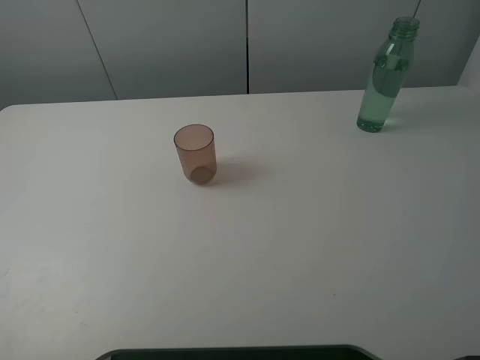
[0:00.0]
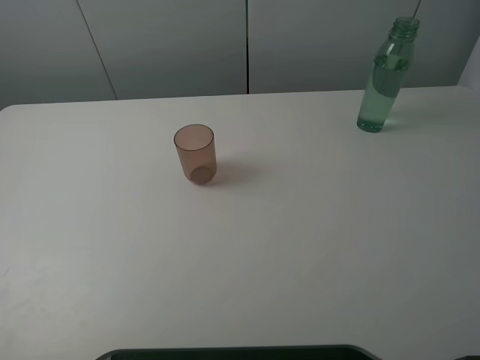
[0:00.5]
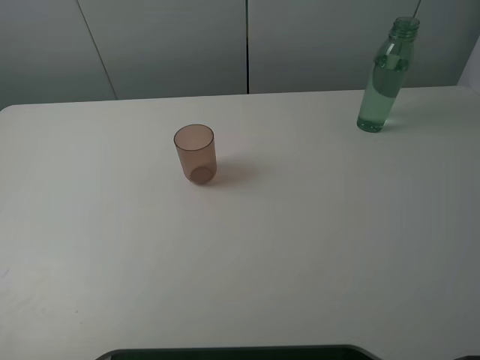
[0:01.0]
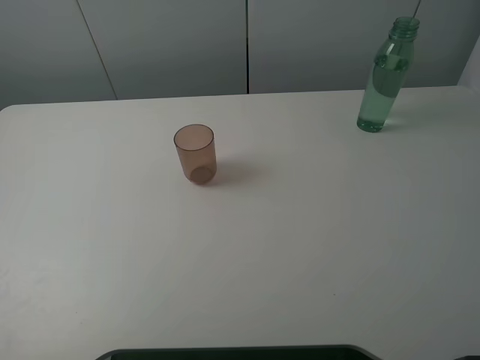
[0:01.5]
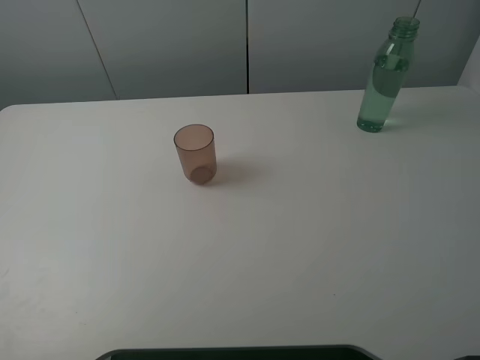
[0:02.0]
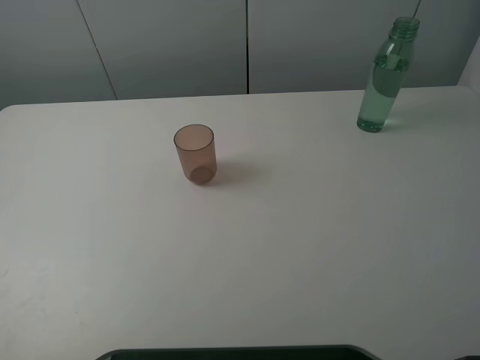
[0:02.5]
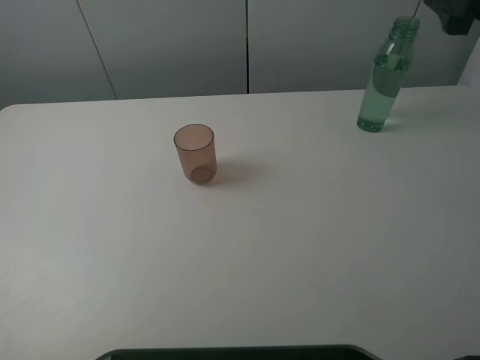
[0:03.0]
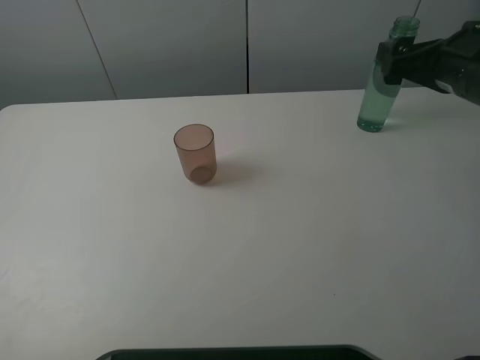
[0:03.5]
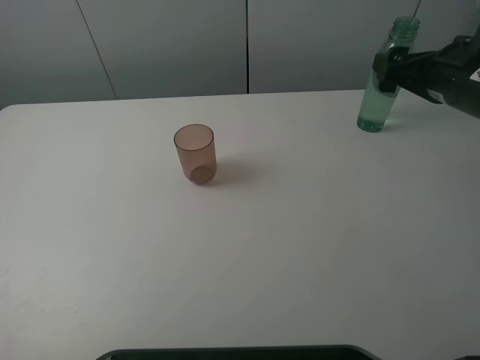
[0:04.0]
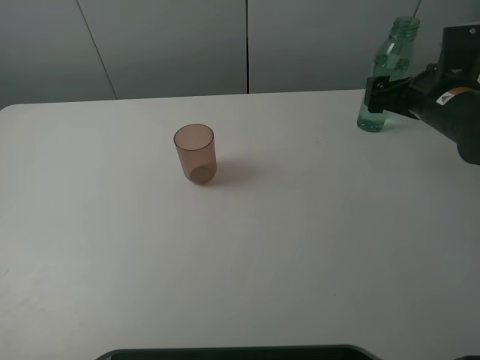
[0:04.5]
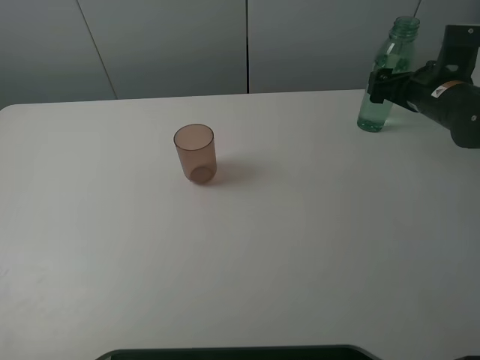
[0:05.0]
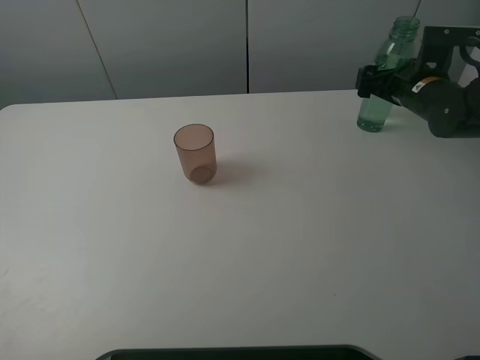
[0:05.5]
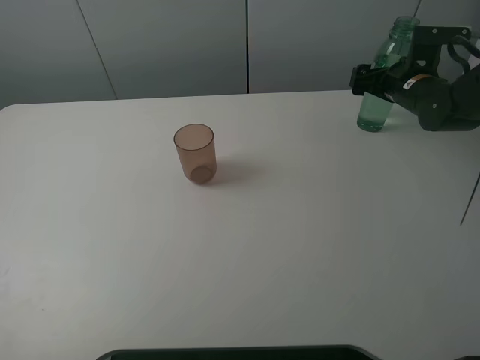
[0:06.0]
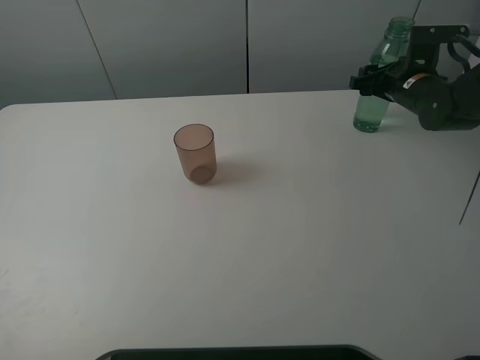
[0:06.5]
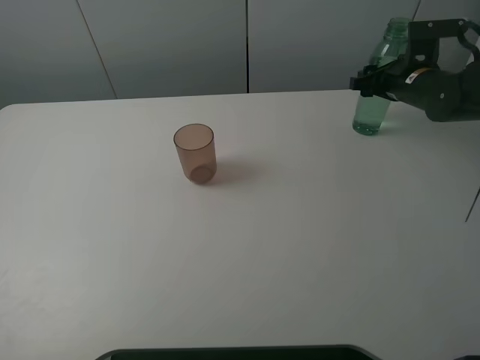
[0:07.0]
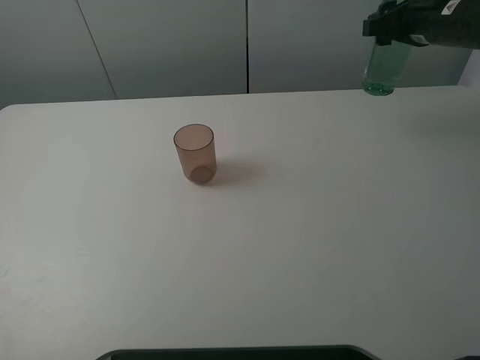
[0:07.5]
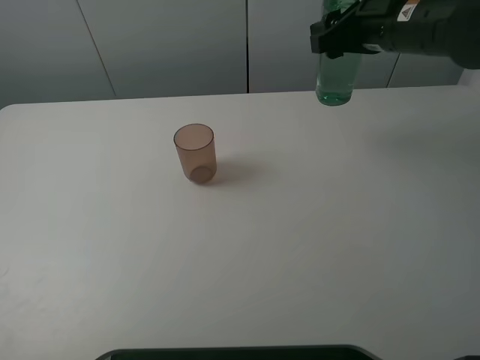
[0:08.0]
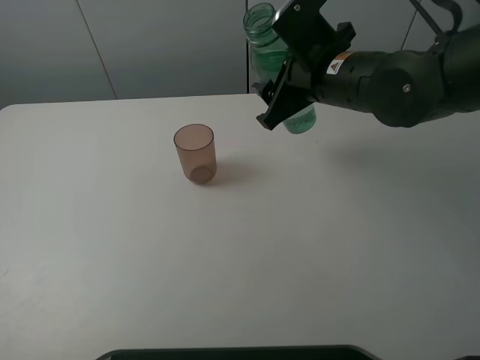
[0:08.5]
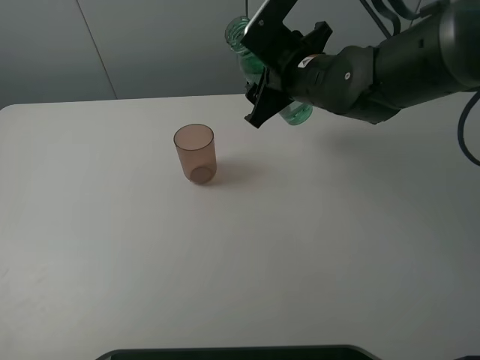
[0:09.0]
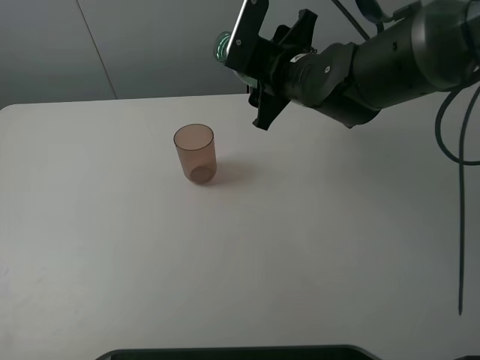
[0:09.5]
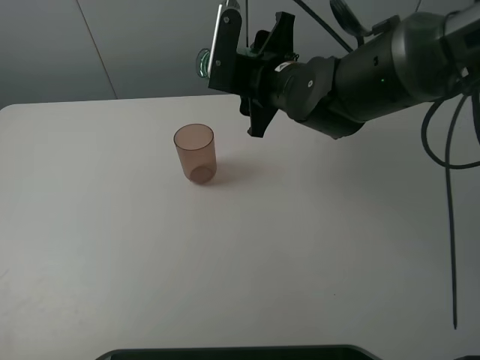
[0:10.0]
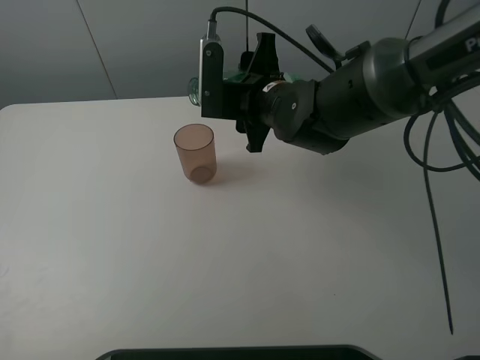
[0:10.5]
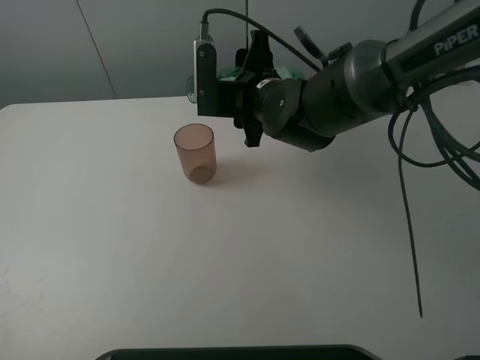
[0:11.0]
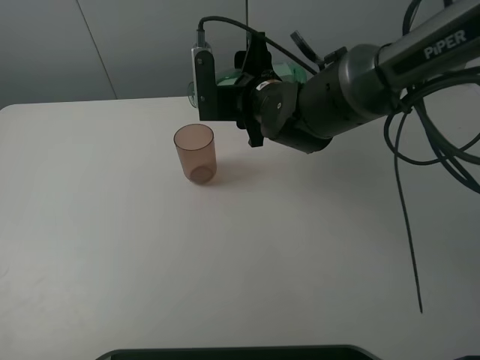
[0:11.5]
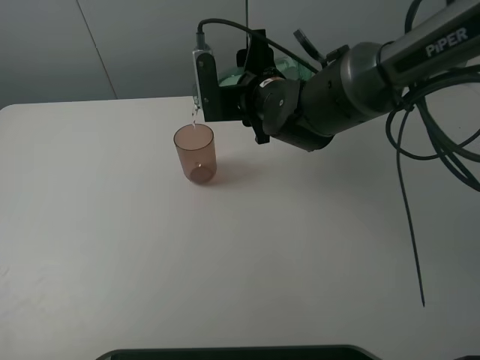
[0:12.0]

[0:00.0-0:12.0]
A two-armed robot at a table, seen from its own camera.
Task of the whole recording: pick up the bottle filled with water and pour it into the pink cup.
Step, 0:00.0 to 0:06.0: Grasp the green bottle with the right gripper.
0:02.0 to 0:04.0: The right gripper goes about 30 cm forward.
0:04.0 to 0:06.0: The right gripper moves forward and downward, some 15 cm.
0:06.0 to 0:08.0: The right gripper moves upward, to the left and backward, roughly 20 cm, and closes up.
0:08.0 to 0:10.0: The right gripper moves to the left and downward, approximately 15 cm.
0:10.0 to 0:12.0: The grippers stay close to where they were, moving slightly.

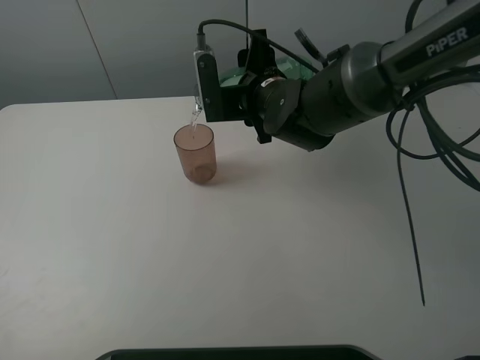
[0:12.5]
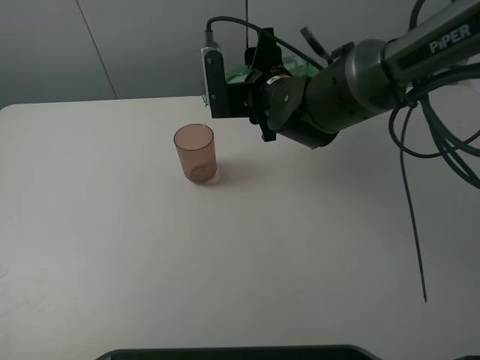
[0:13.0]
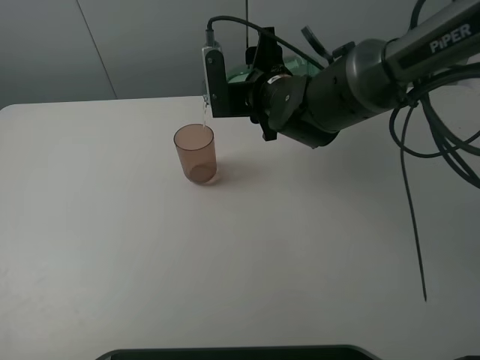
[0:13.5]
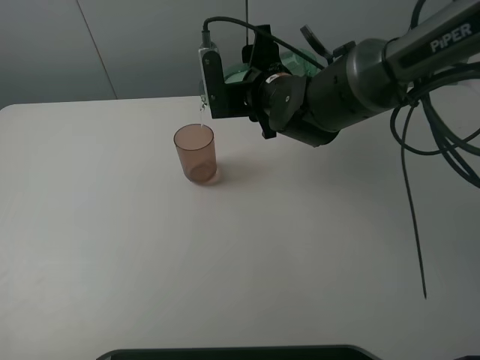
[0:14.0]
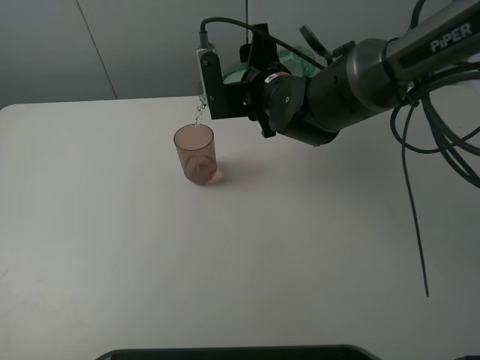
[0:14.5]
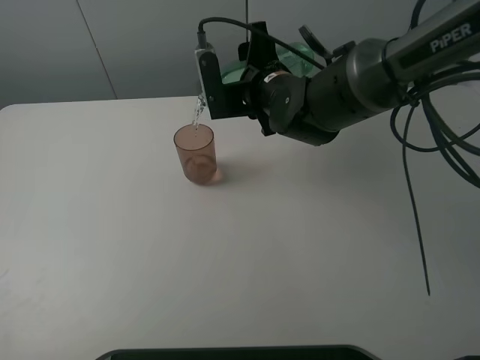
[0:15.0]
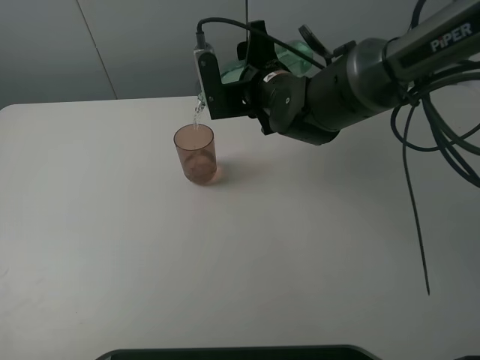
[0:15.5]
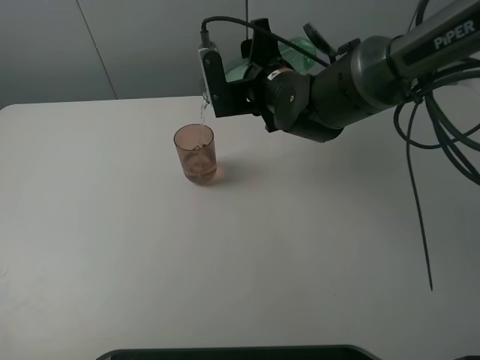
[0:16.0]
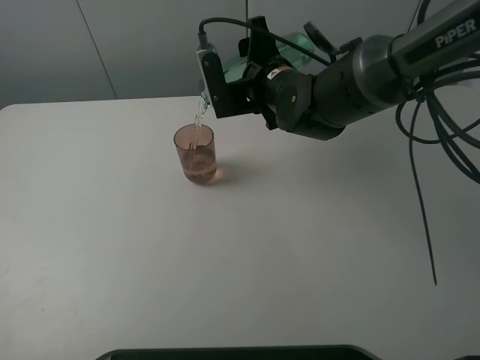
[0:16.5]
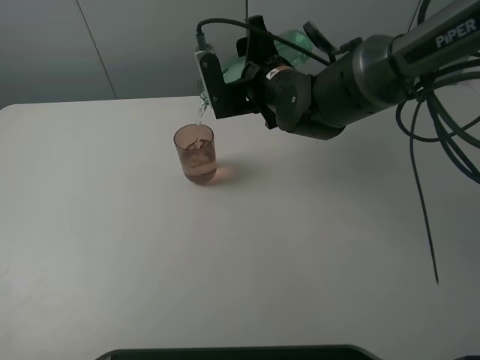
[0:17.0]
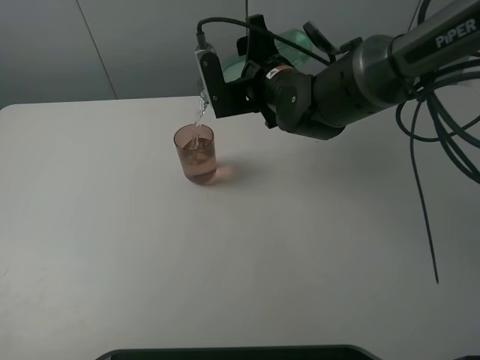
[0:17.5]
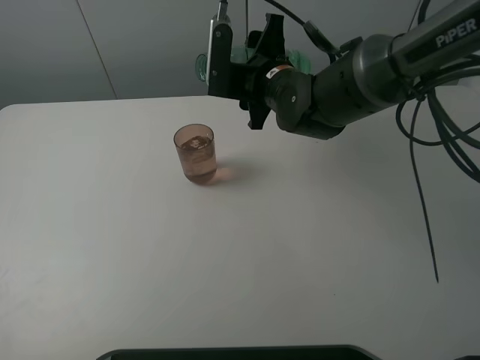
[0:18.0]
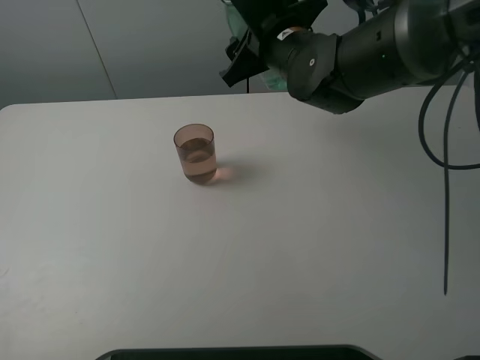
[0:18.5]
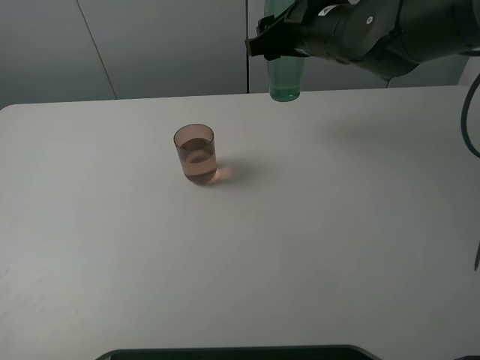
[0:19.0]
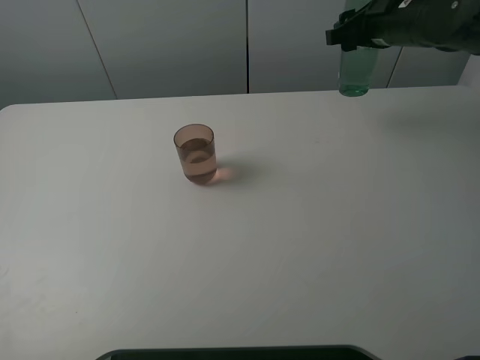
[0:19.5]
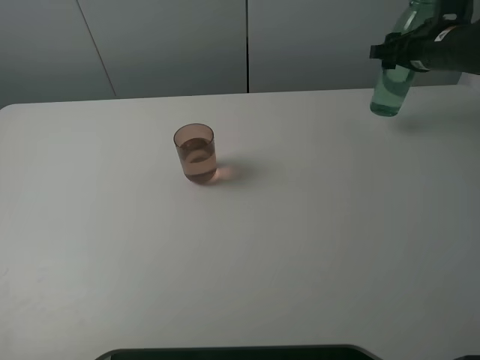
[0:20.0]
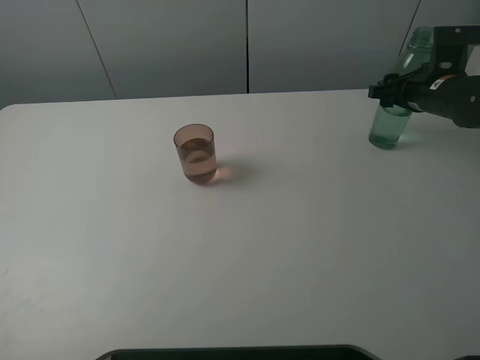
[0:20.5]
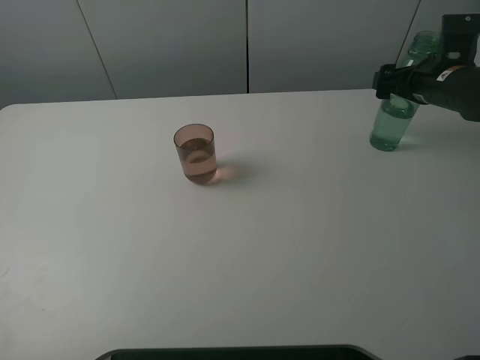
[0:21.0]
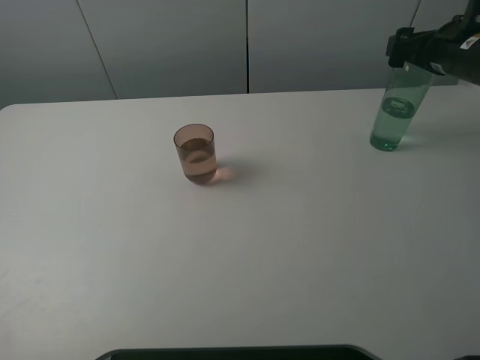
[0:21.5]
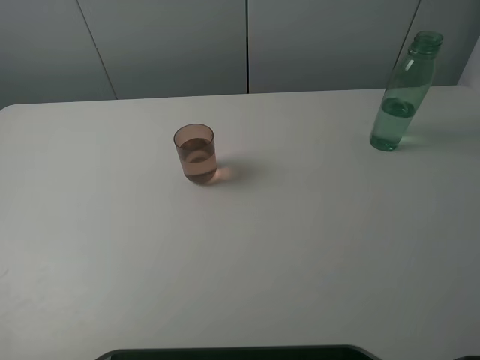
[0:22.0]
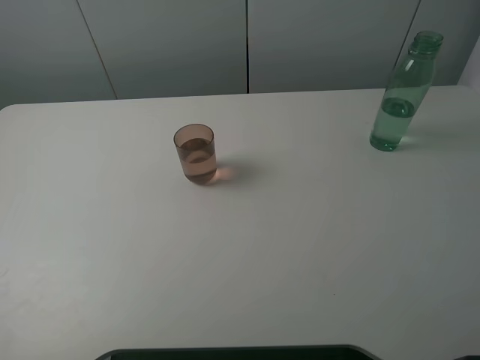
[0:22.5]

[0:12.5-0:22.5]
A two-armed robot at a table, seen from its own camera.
Task of the whole recording: pick up the bottle filled with water and pour it into the pink cup.
Step, 0:12.5 to 0:18.0: Pour water from green bottle to pink cup with the right gripper.
Step, 0:18.5 to 0:21.5: Place the green bottle with the right gripper.
0:12.5 to 0:14.5: Both grippers stay about where they are.
0:14.5 to 0:16.5: The grippers stay close to where they were, moving slightly.
0:16.5 to 0:18.5: The right gripper is displaced upward by roughly 5 cm.
0:18.5 to 0:20.5: The right gripper travels to the right by about 25 cm.
0:20.5 to 0:22.5: The right gripper shifts about 30 cm upward and backward, and opens.

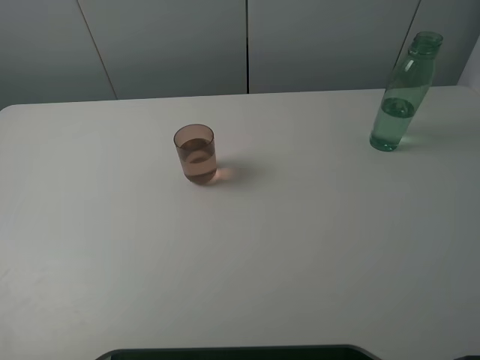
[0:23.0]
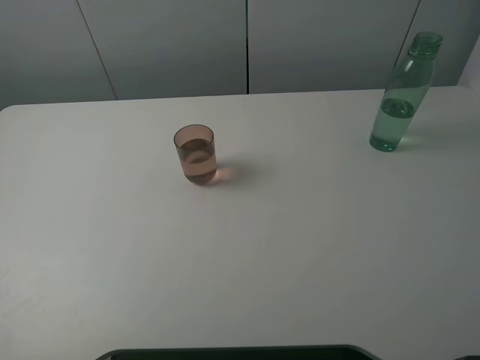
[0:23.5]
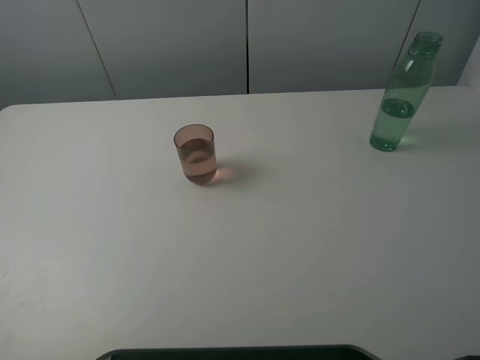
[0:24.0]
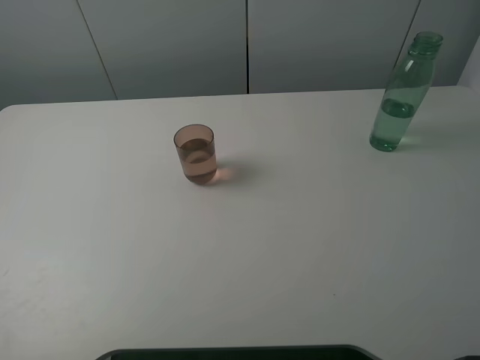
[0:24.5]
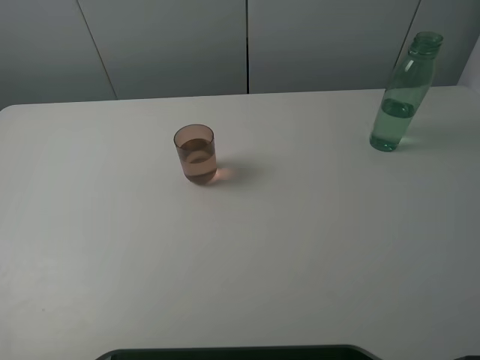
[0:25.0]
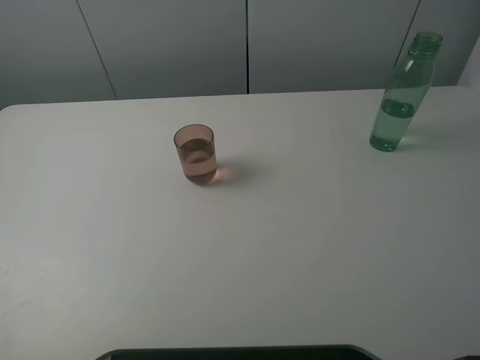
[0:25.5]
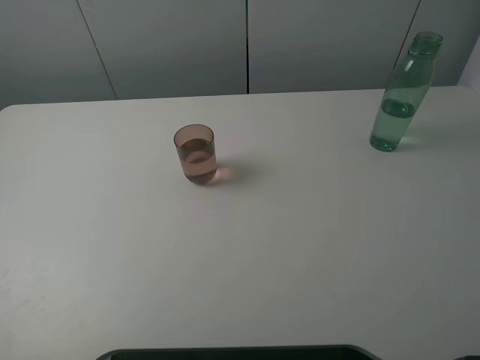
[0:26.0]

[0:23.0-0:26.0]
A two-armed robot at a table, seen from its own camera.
Task of the whole recording: pick up the bottle filled with water and pour it into the pink cup.
0:24.5 to 0:26.0: Both grippers stay put.
